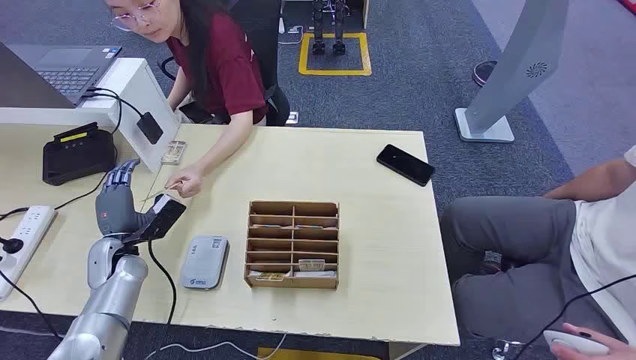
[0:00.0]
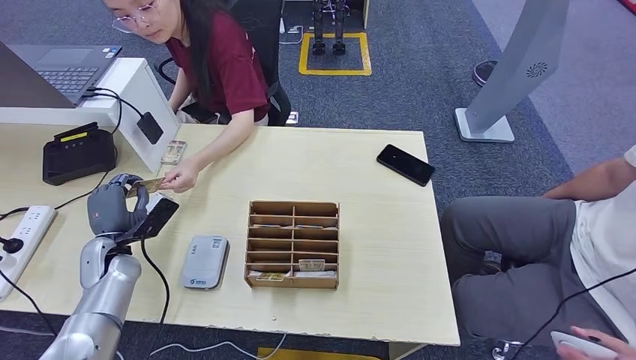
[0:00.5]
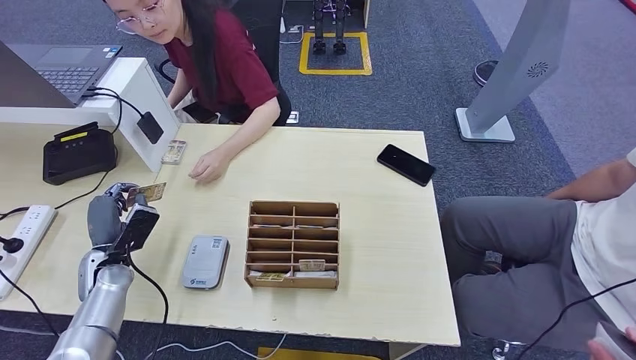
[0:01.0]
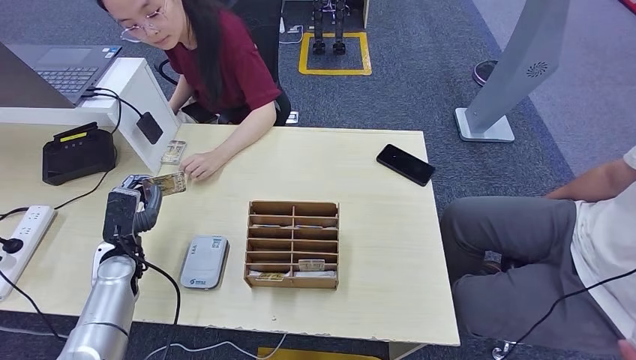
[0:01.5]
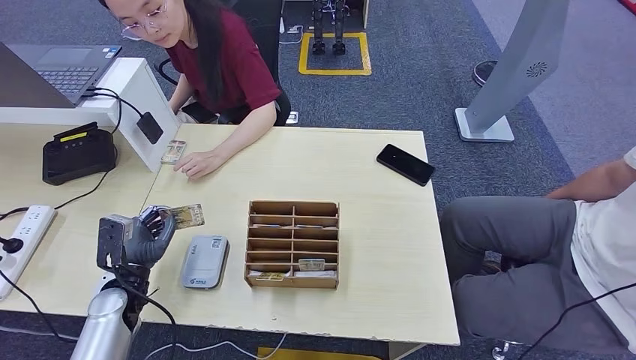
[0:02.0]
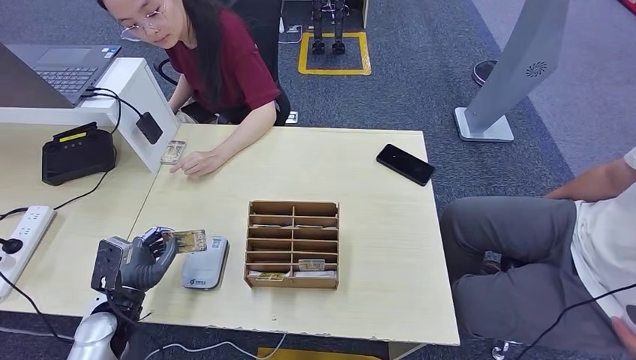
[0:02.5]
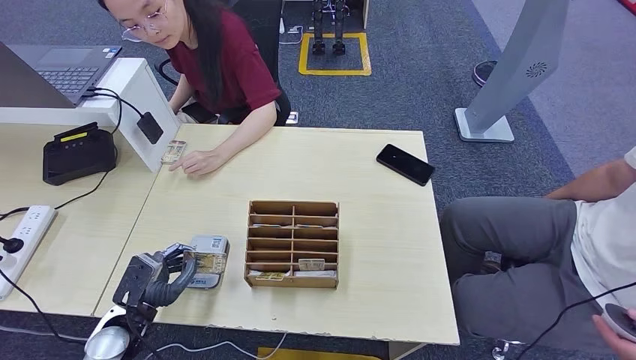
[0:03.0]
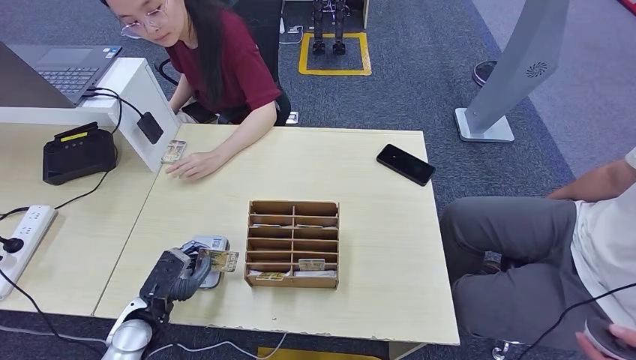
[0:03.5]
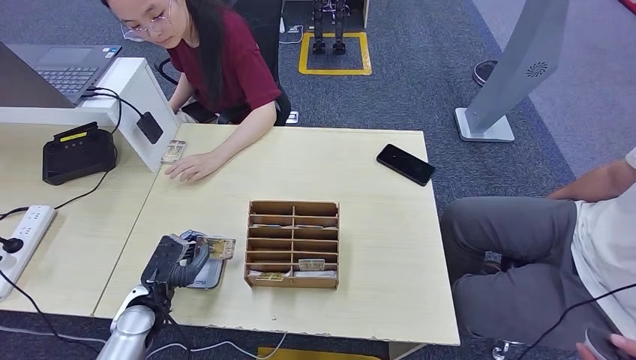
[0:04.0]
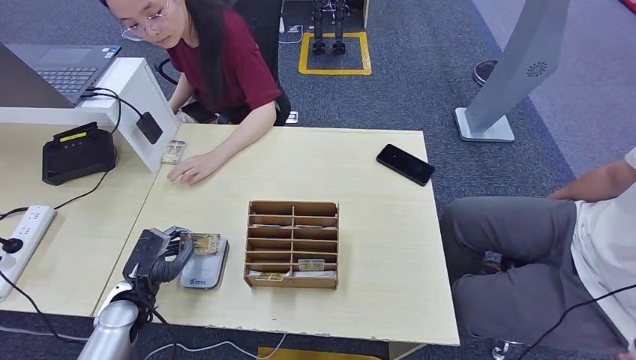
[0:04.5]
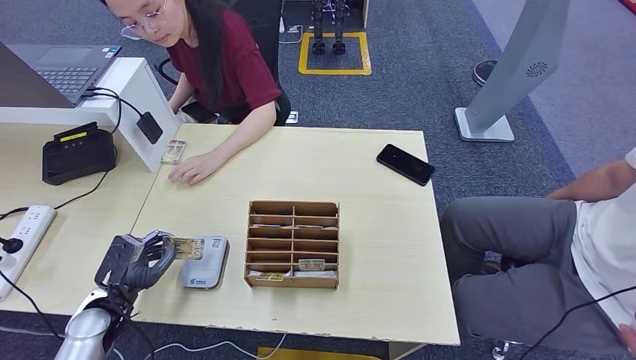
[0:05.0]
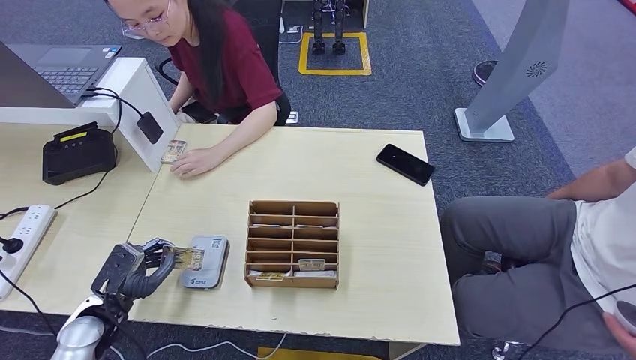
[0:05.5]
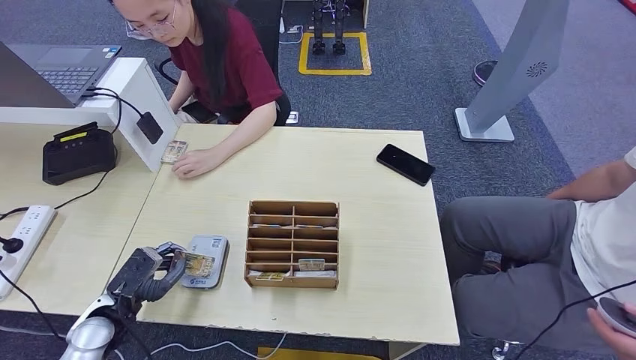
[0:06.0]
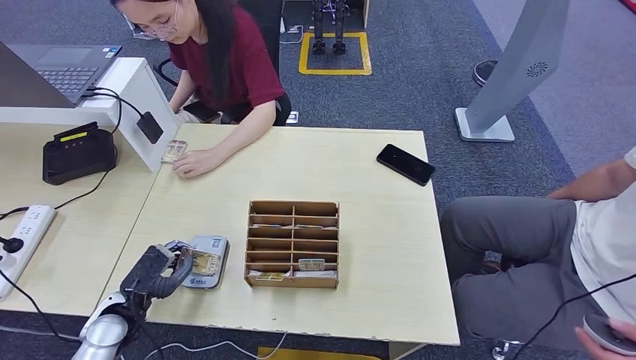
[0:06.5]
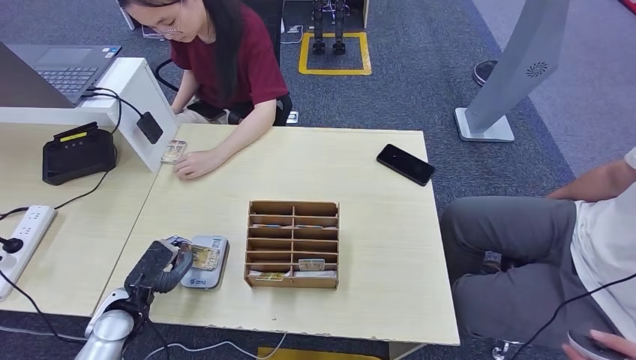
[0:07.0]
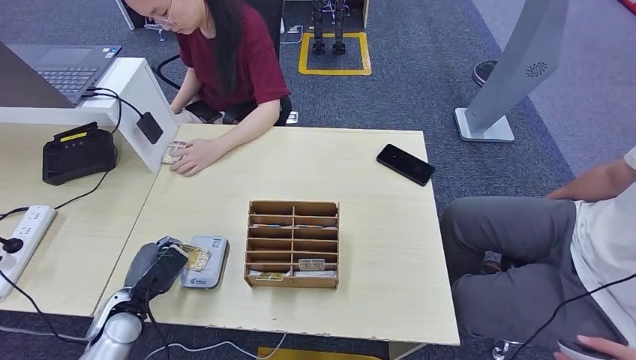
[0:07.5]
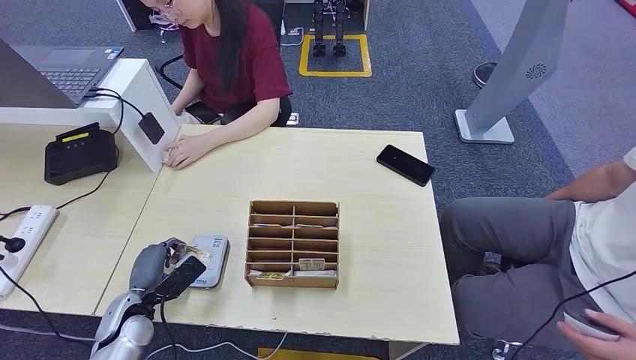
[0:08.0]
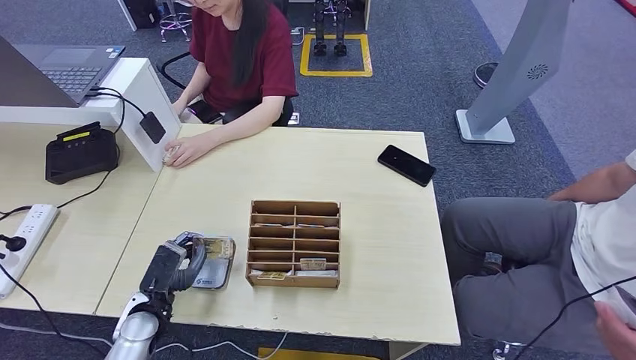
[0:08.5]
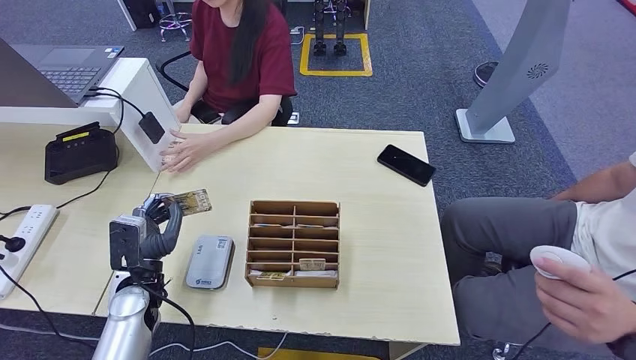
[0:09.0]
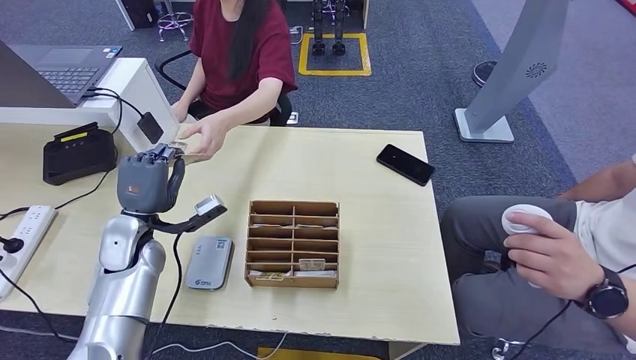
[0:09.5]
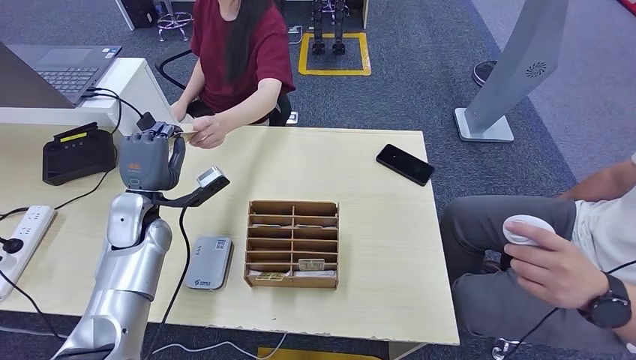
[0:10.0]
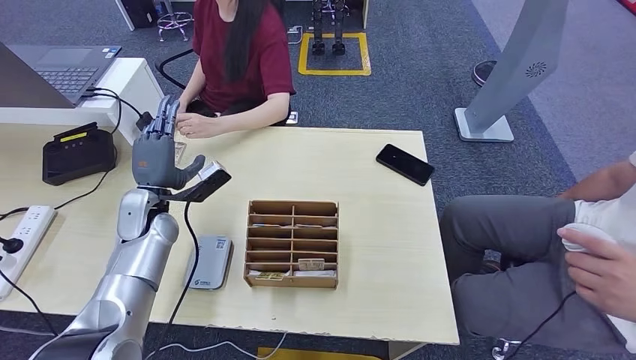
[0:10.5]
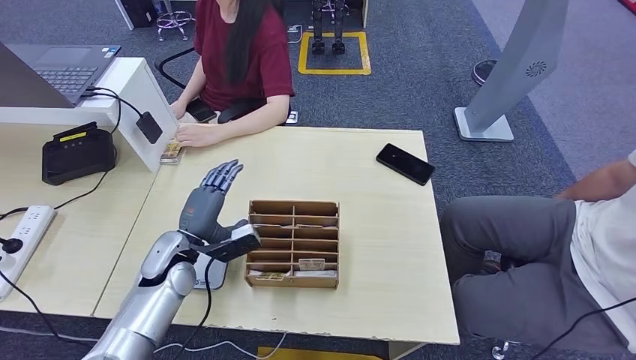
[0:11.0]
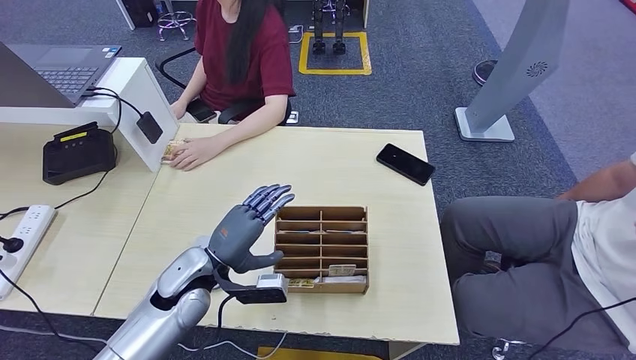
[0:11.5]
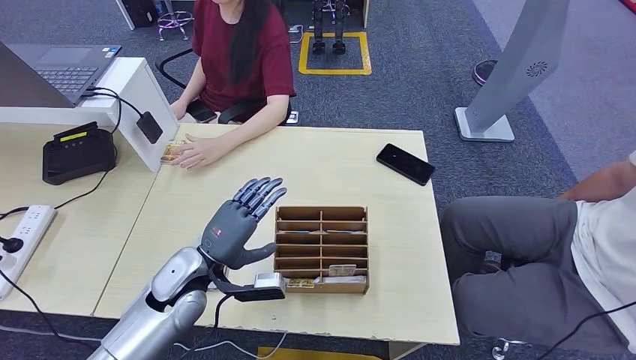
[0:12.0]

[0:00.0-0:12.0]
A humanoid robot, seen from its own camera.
Step, 0:00.0 to 0:00.5: Take the ID card from the person's hand.
Step, 0:01.0 to 0:03.5: Place the ID card on the card reader.
Step, 0:04.0 to 0:10.5: Hand the ID card to the person.
0:02.0 to 0:04.0: The left hand moves roughly 5 cm.
0:04.0 to 0:06.0: The left hand moves to the left, approximately 5 cm.
0:08.0 to 0:10.0: The left hand shifts approximately 20 cm upward and forward.

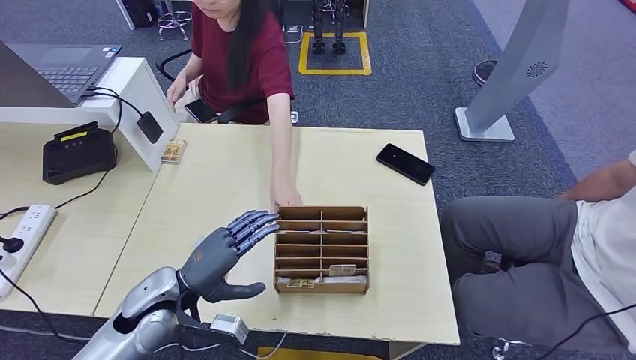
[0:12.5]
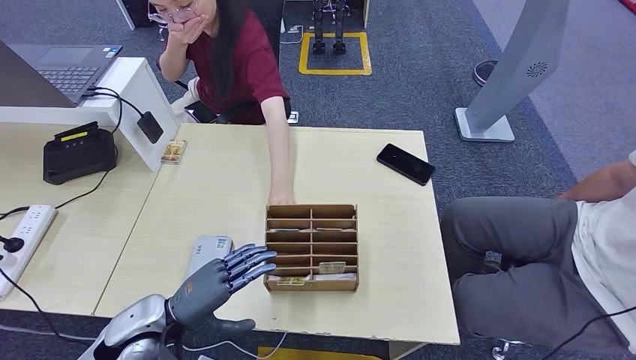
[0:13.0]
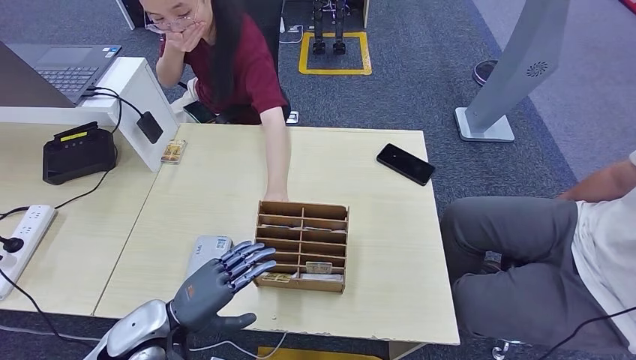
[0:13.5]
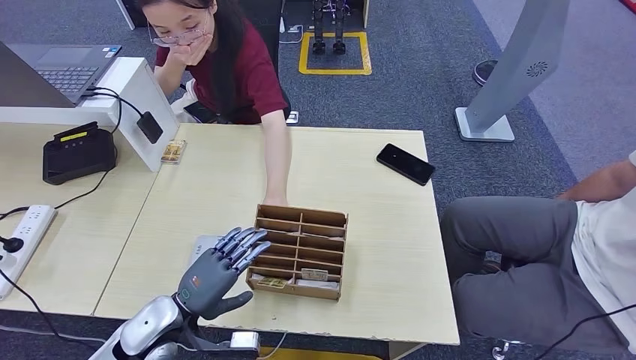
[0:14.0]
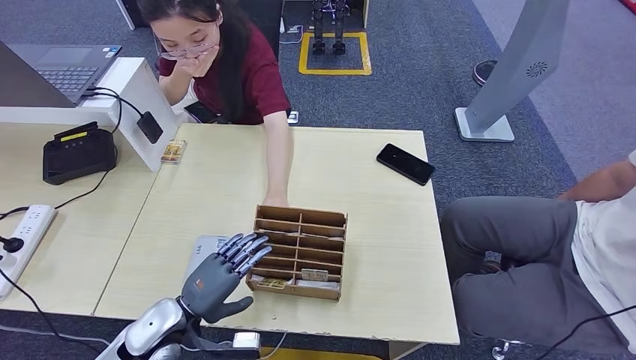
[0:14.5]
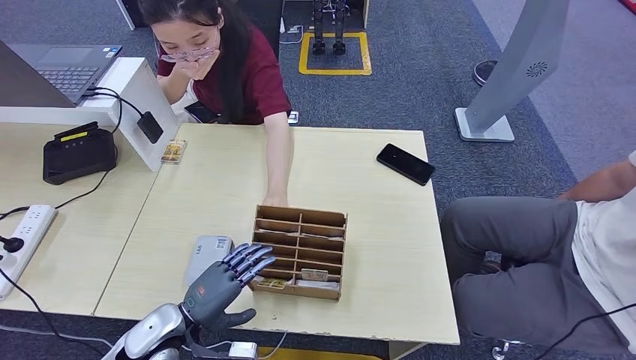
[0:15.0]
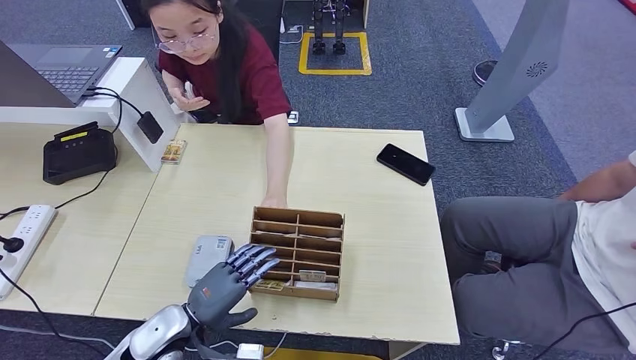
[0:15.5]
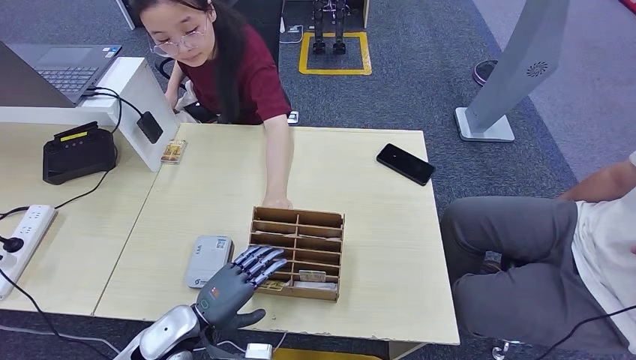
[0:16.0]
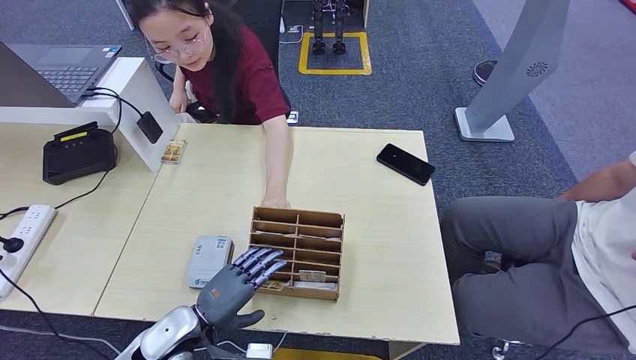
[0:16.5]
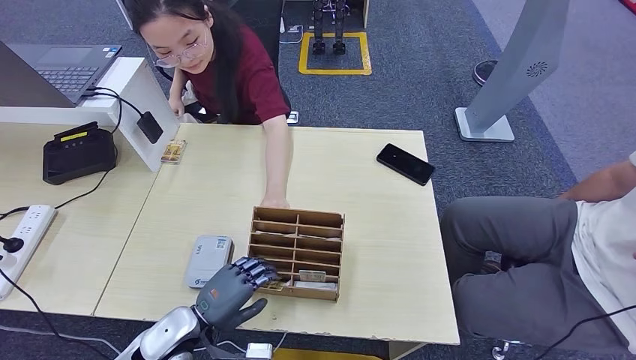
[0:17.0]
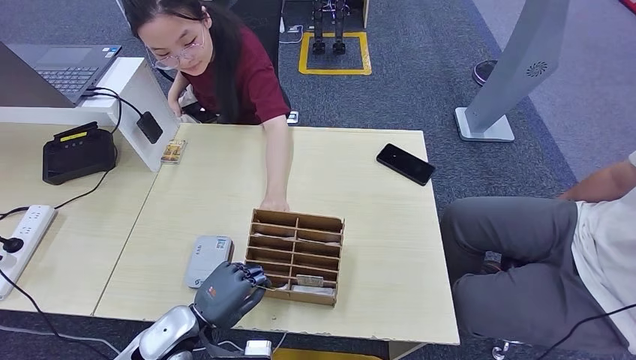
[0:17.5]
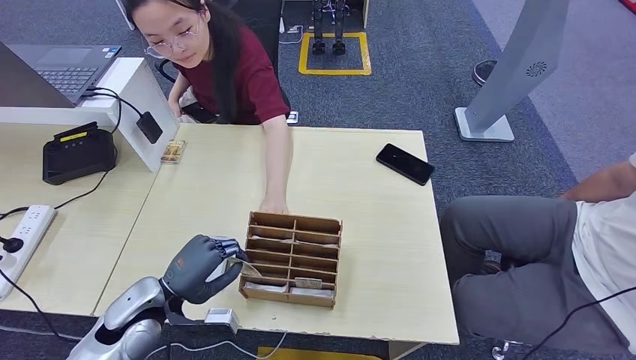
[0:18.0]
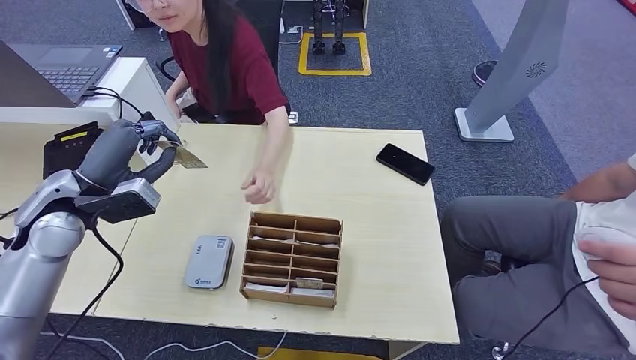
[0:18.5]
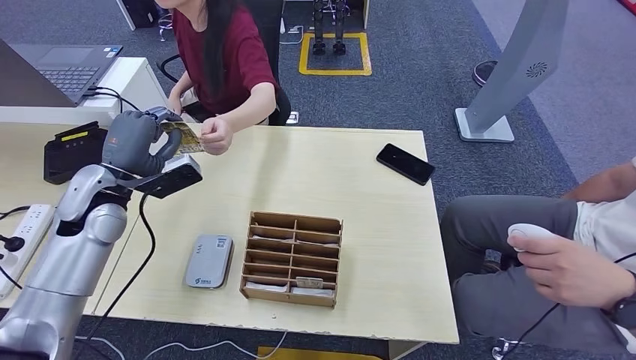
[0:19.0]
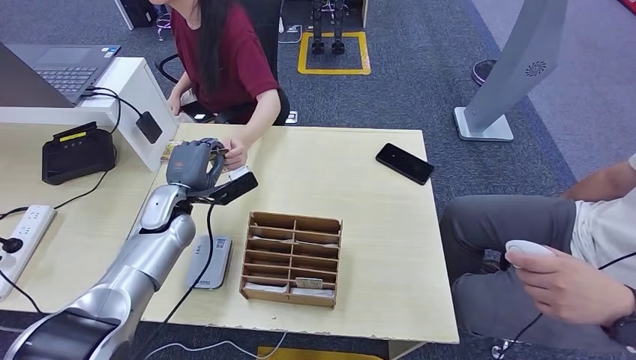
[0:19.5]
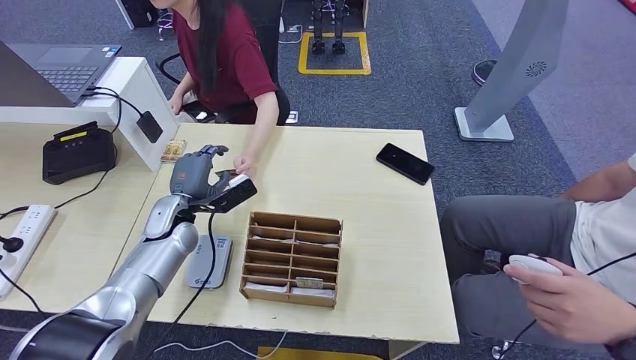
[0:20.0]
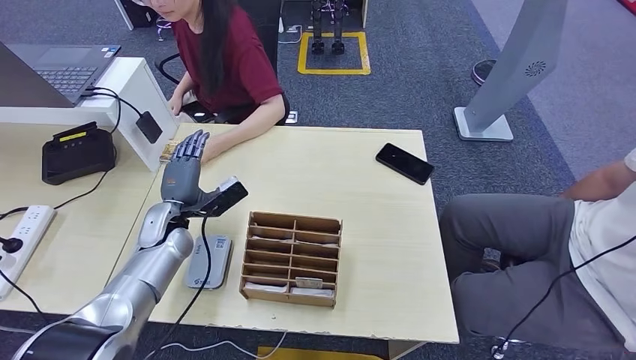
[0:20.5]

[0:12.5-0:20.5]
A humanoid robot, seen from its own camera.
Step, 0:15.5 to 0:18.0: Pick up the room key from the key card box.
Step, 0:18.5 to 0:20.5: Hand the room key to the person.
0:12.5 to 0:14.5: The left hand heads downward, covering roughly 5 cm.
0:14.5 to 0:16.5: The hands make only small movements.
0:16.5 to 0:18.5: The left hand moves upward, to the left and forward, approximately 30 cm.
0:18.5 to 0:20.5: The left hand shifts about 20 cm downward, to the right and forward.
